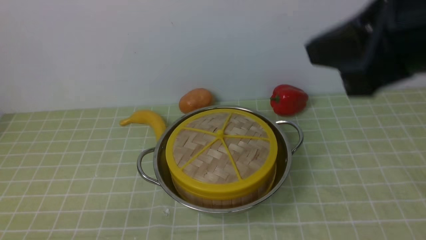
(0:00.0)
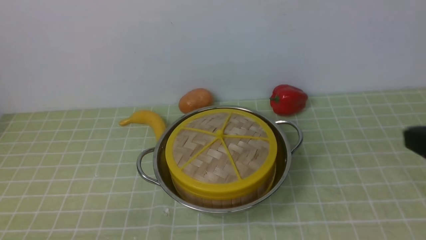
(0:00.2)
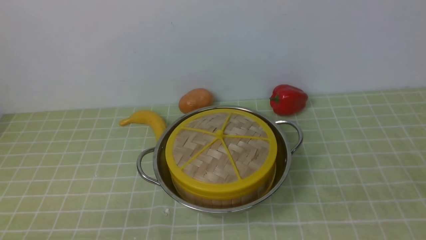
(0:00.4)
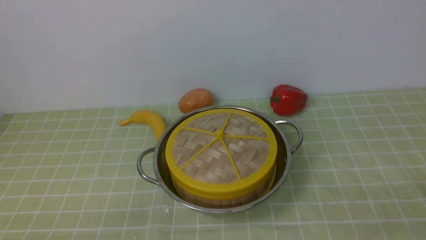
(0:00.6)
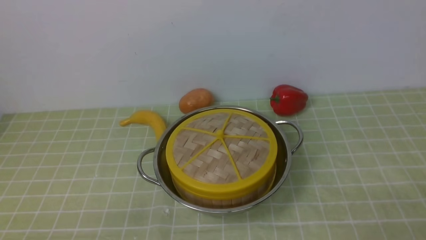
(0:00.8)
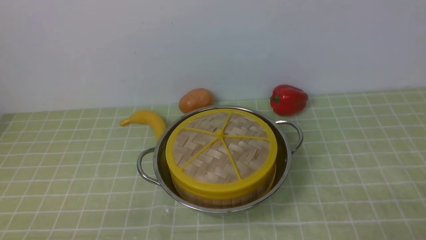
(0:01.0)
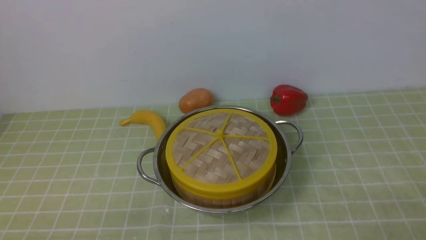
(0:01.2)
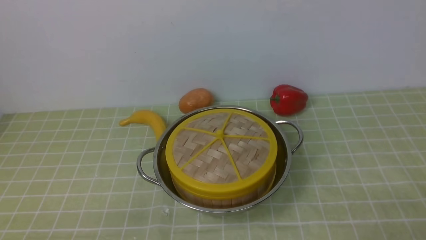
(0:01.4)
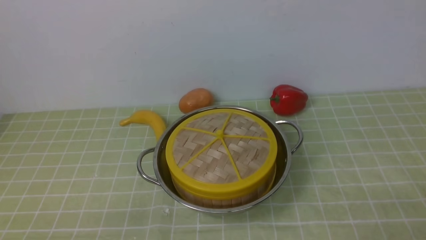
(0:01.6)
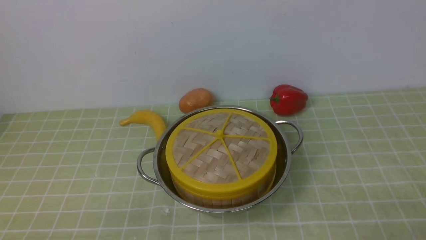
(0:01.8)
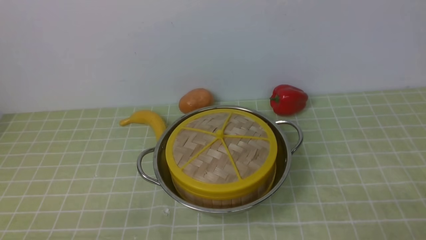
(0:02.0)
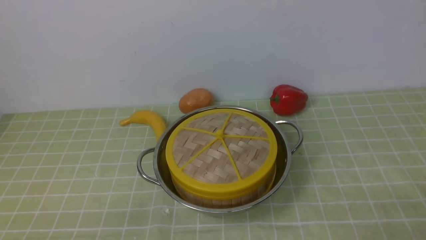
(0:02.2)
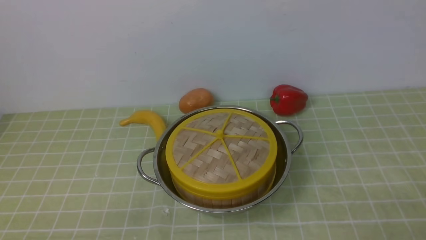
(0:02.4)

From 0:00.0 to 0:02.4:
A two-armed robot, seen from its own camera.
Task of the whole recording: place the steamer in the pot on the green tablecloth, and put the lid on the steamer.
From 0:00.0 to 0:01.2: The right gripper goes some 35 cm downward, backward and to the right.
From 0:01.2 to 0:02.4: Neither gripper changes place.

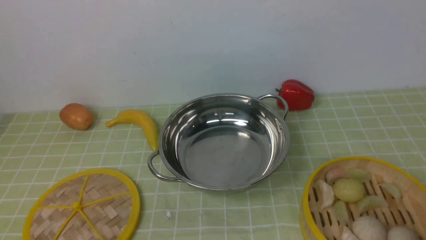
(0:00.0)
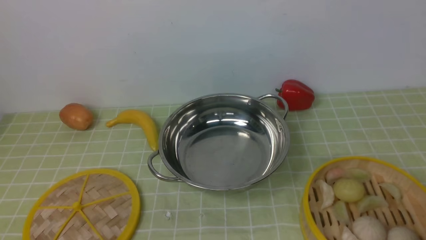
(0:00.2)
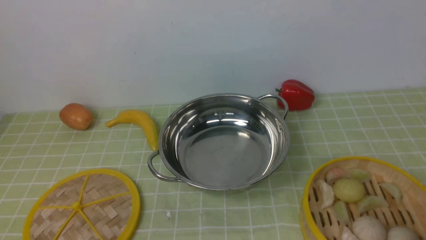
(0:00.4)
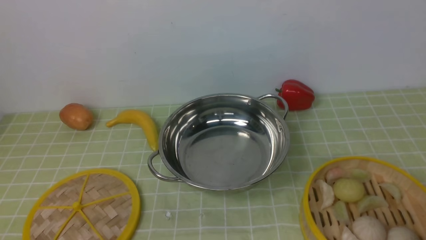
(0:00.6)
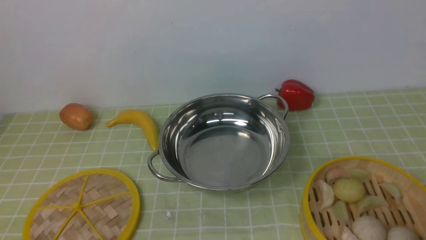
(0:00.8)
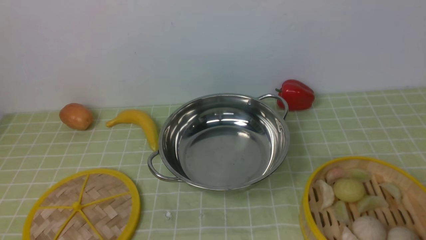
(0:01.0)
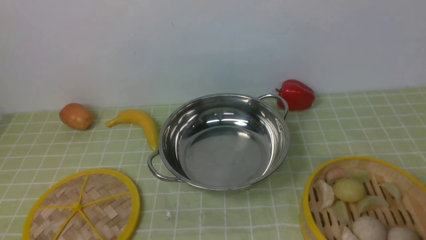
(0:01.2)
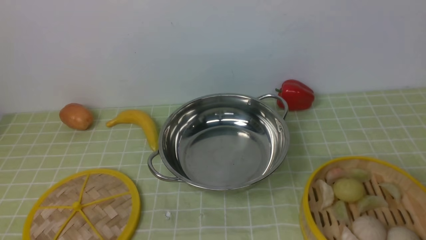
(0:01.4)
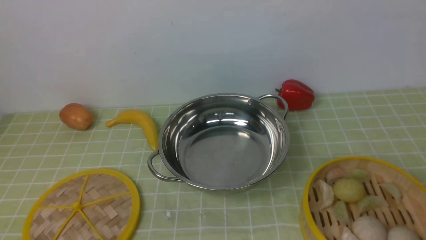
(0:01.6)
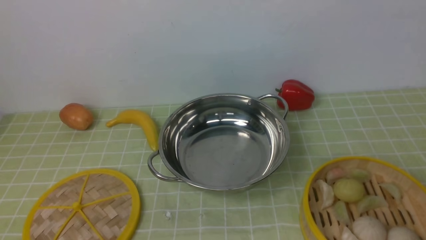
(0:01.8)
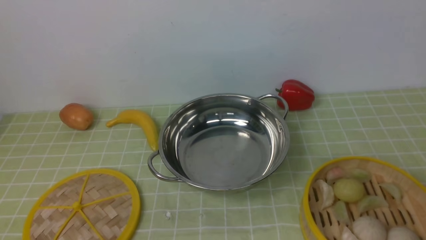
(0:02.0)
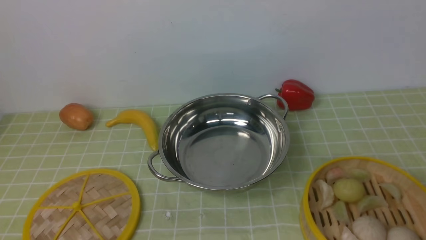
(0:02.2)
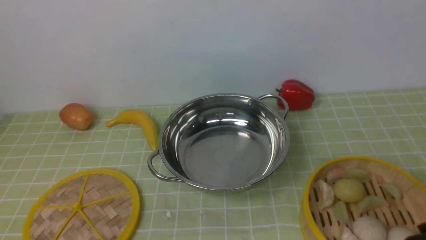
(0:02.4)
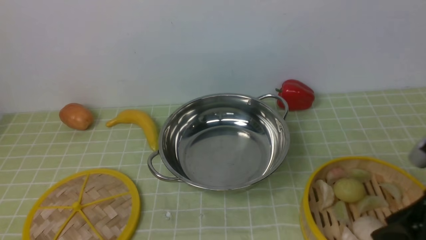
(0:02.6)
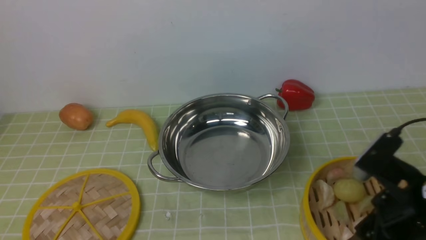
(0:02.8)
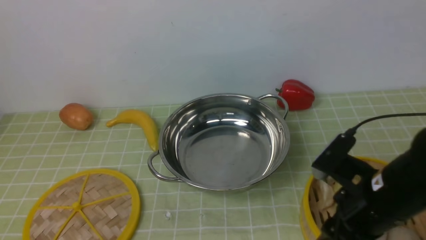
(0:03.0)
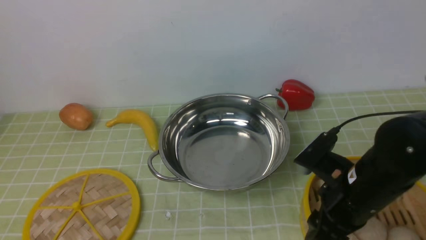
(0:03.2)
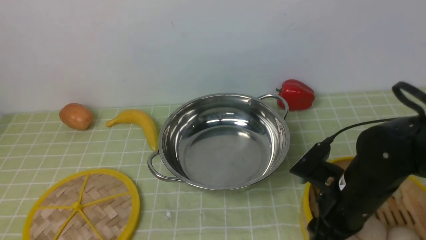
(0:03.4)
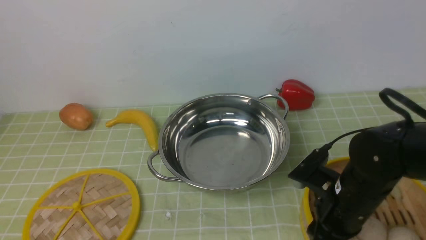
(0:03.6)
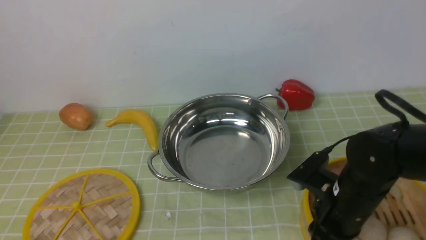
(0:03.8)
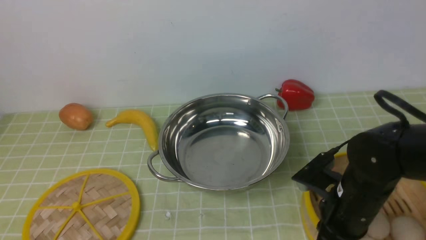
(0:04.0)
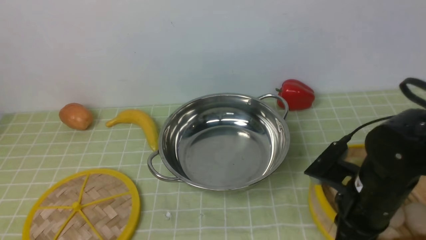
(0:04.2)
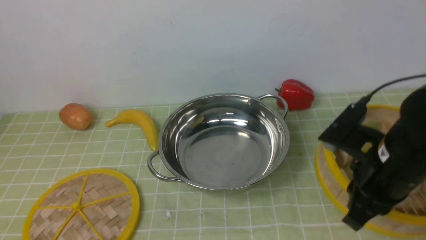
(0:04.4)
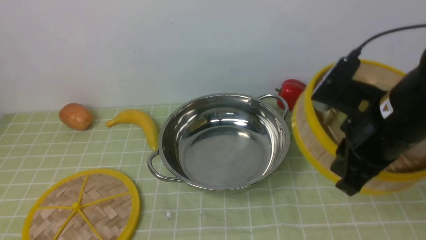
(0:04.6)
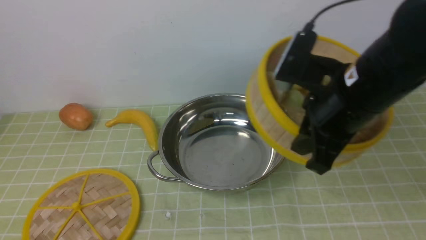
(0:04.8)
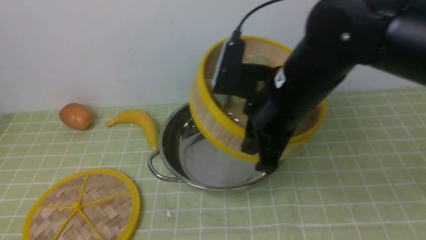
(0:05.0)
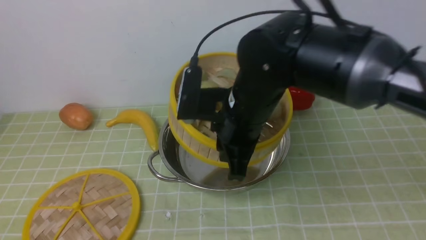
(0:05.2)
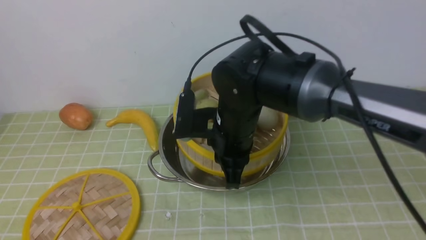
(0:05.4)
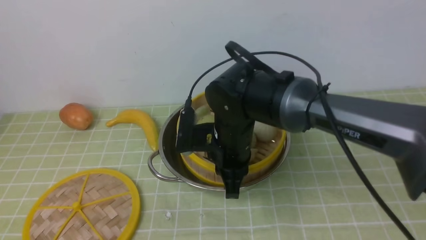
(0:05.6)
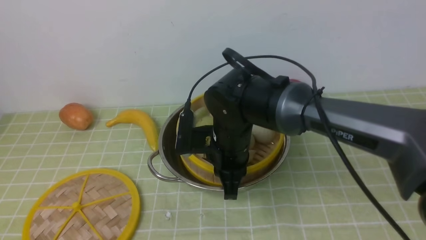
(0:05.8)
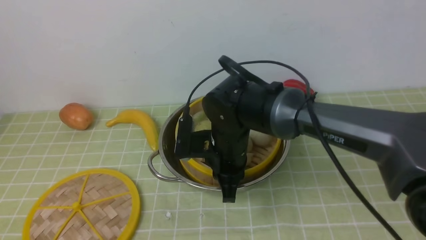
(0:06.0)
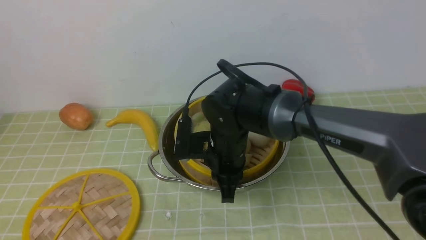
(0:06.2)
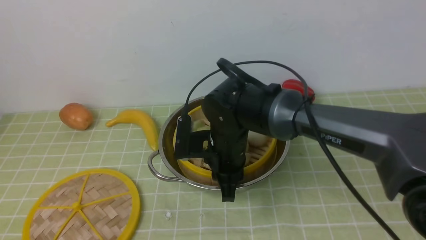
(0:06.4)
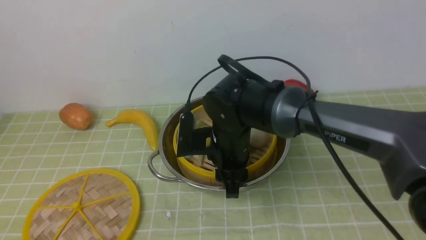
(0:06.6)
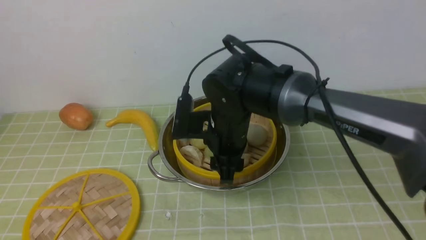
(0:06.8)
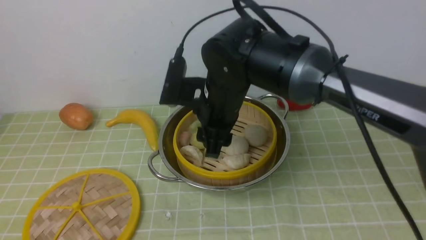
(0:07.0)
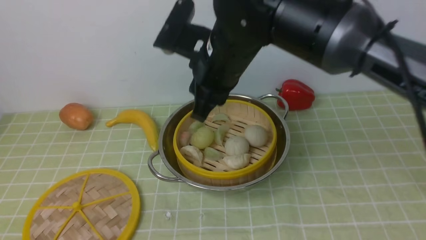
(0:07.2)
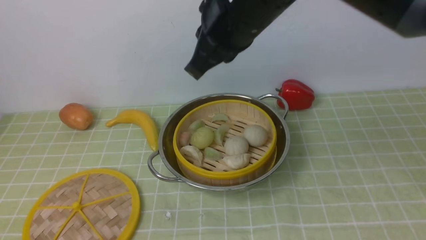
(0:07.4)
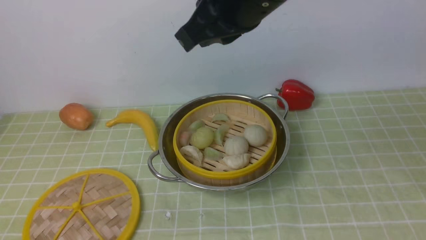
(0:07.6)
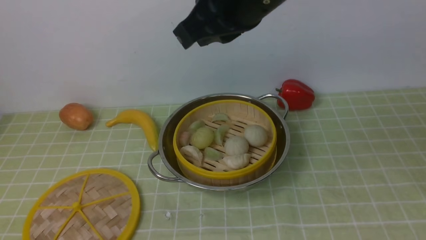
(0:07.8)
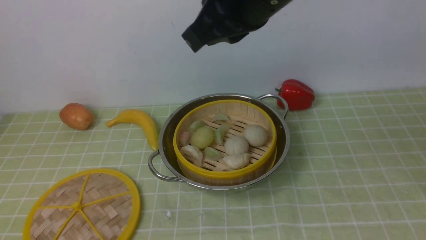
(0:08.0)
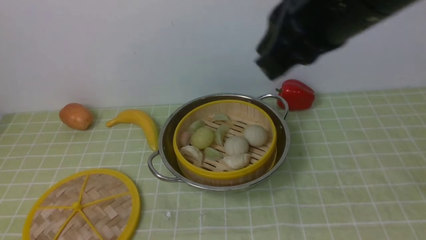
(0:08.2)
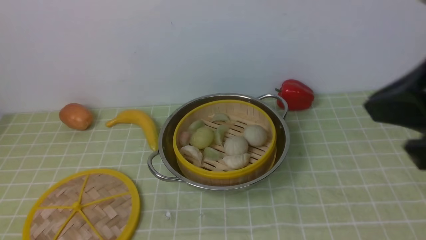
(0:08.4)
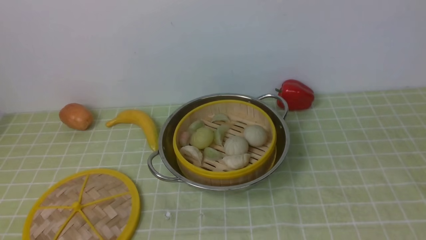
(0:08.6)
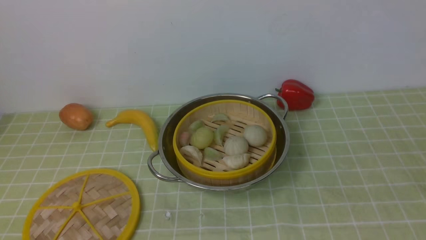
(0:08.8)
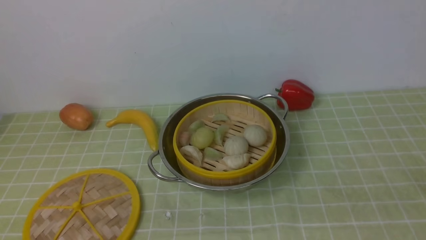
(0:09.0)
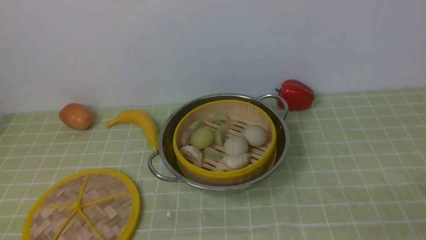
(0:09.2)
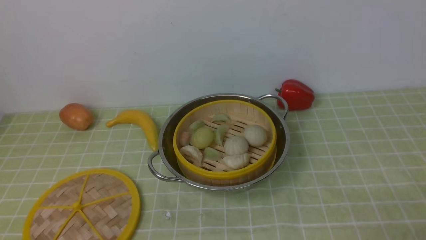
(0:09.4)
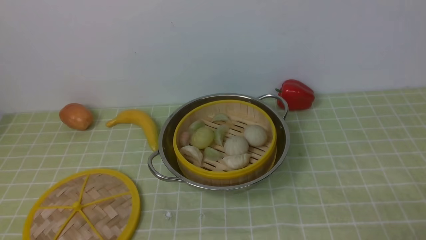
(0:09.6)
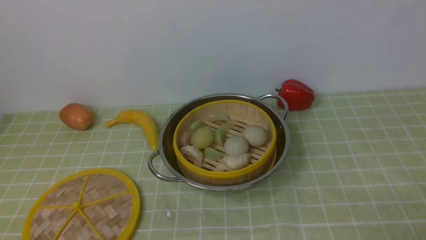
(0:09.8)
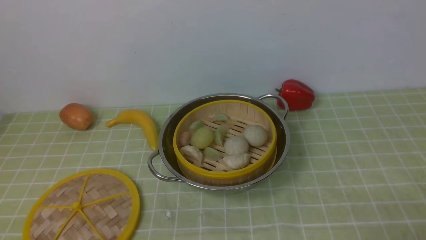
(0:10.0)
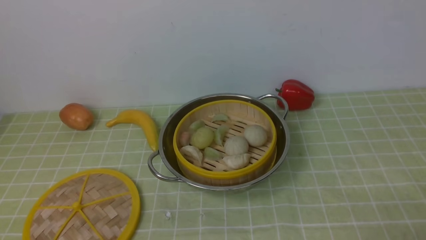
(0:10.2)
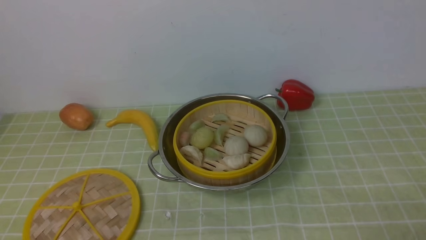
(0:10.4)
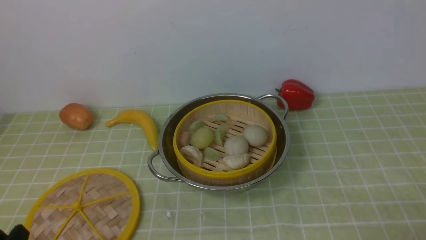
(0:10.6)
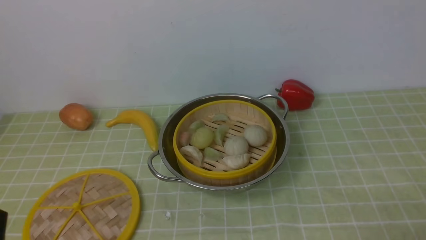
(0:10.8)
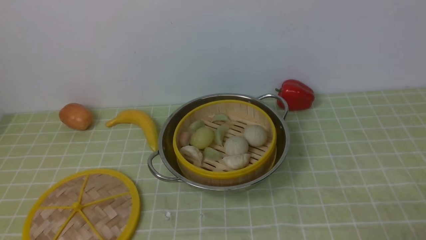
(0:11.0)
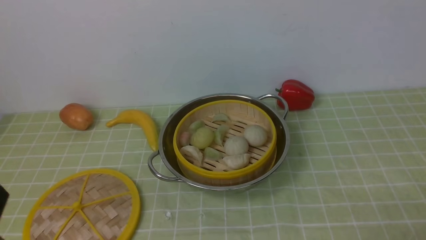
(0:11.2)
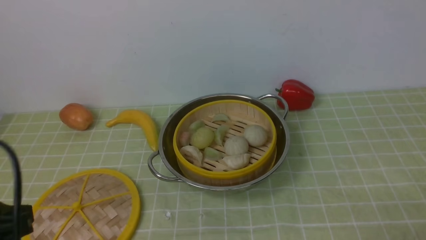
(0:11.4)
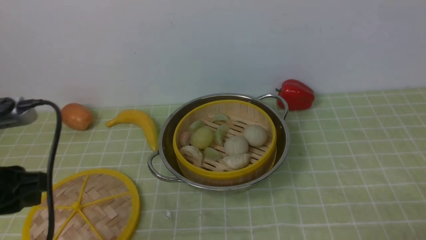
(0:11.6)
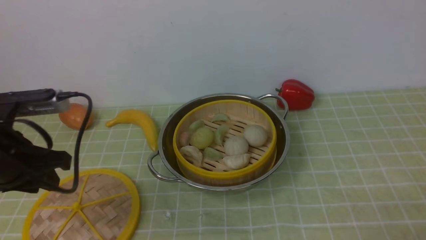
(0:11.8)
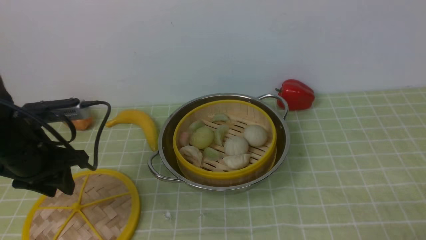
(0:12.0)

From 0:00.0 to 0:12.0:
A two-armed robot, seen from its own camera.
Task of the whole recording: place the steamer in the pot on the green tablecloth, and put the lid on the steamer.
Step, from 0:00.0 to 0:04.8: use the right arm to lift the steamer closest to it.
Step, from 0:05.0 to 0:07.8: use the right arm to put the steamer into the iron steamer pot in the middle.
From 0:01.6 to 0:03.0: The right gripper moves forward, to the left and downward, approximately 20 cm, and opens up.
From 0:03.0 to 0:04.4: The right gripper closes its fingers.
From 0:04.4 to 0:06.0: The right gripper heads to the left, forward and downward, covering approximately 20 cm.
From 0:06.0 to 0:07.6: The right gripper shifts about 25 cm upward, and opens, then closes once more.
From 0:07.6 to 0:09.0: The right gripper heads to the right, backward and downward, covering about 40 cm, and opens up.
From 0:10.4 to 0:12.0: The left gripper shifts roughly 25 cm forward.

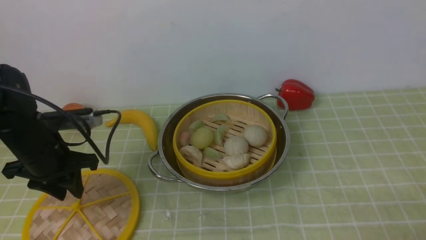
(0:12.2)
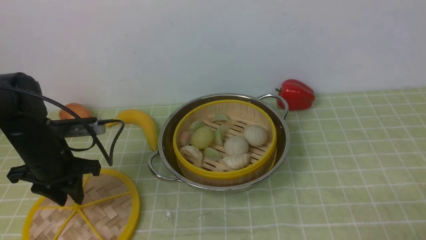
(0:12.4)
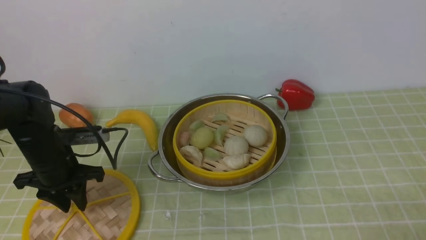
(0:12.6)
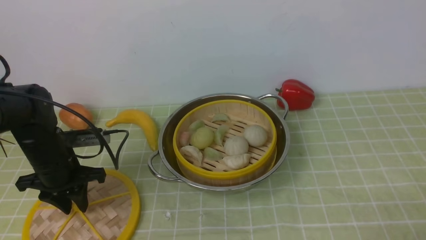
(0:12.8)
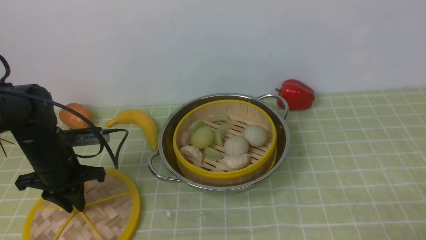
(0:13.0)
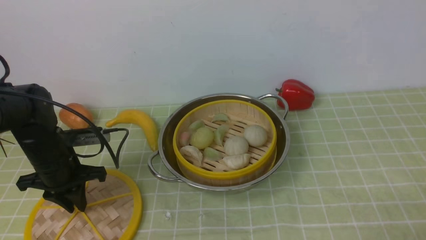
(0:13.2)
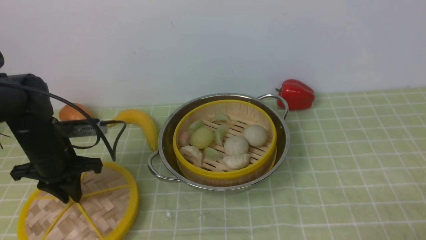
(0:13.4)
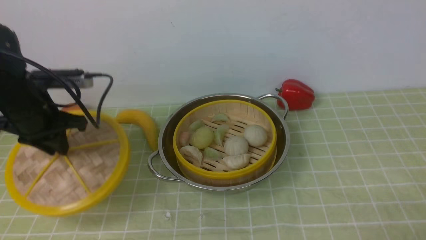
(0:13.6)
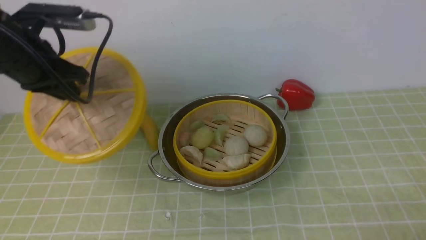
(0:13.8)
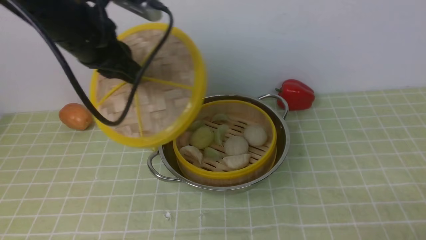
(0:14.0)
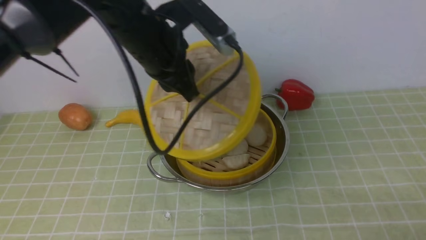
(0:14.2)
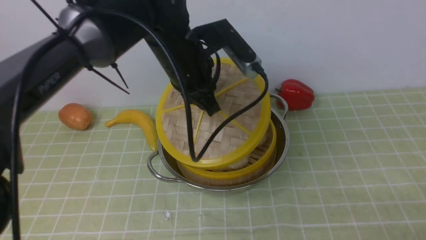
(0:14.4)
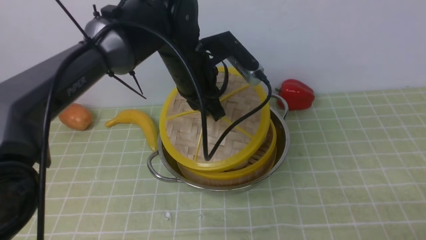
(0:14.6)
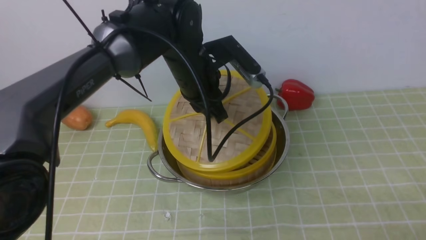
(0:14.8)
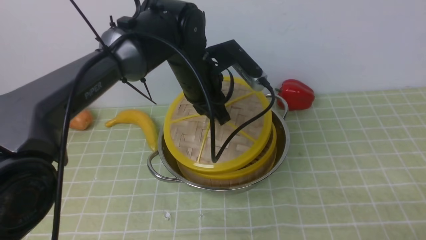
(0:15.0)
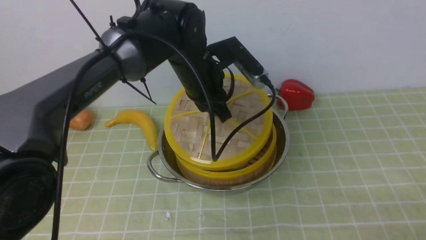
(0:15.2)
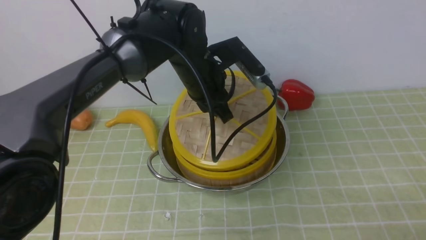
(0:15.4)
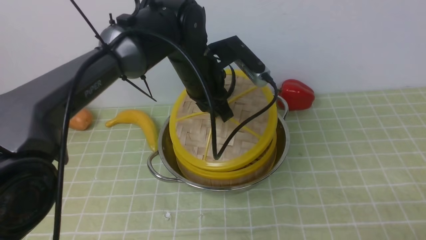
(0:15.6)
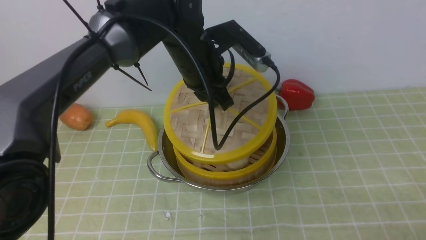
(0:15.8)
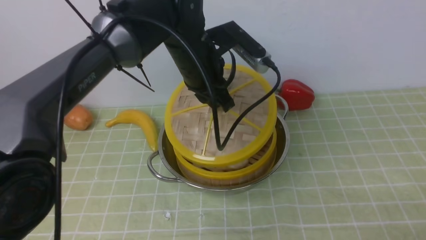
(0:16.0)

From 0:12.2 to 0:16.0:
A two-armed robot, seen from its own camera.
Task of the whole recording: place the steamer in the pot on the green tablecloth, and put the lid on the steamer.
From 0:12.2 to 0:13.4: There are only small adjustments of the grippers.
From 0:13.4 to 0:14.8: The left gripper travels to the right by approximately 25 cm.
From 0:14.8 to 0:16.0: There are only small adjustments of the grippers.
